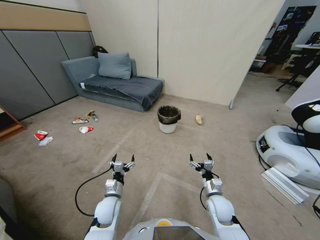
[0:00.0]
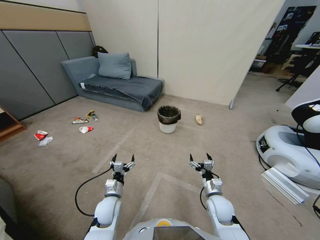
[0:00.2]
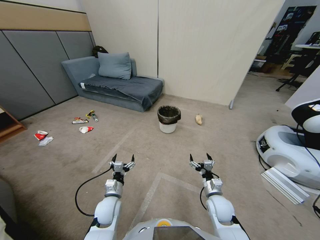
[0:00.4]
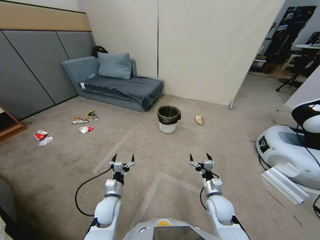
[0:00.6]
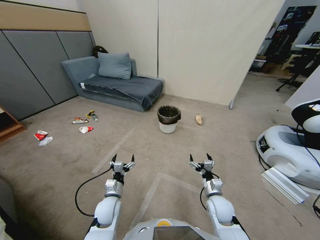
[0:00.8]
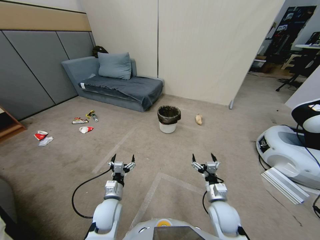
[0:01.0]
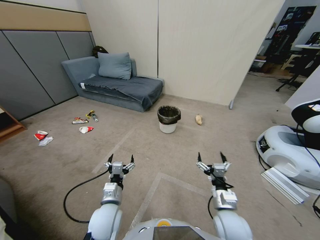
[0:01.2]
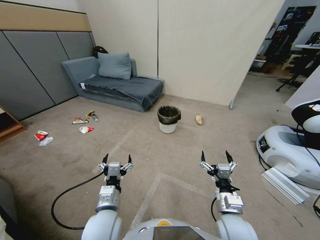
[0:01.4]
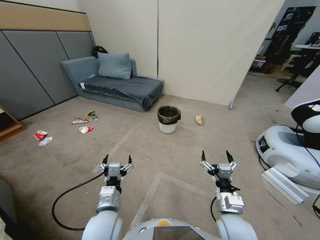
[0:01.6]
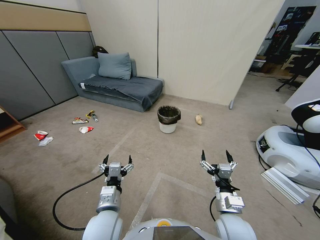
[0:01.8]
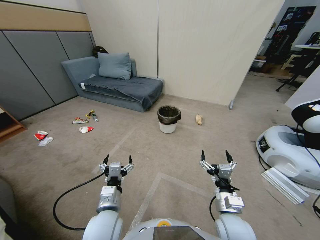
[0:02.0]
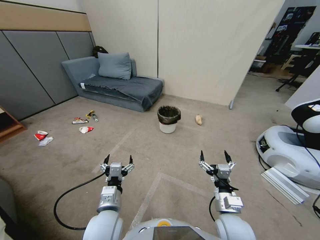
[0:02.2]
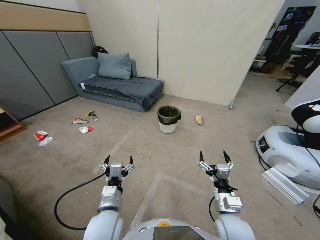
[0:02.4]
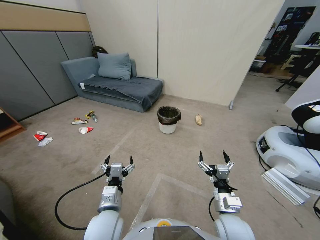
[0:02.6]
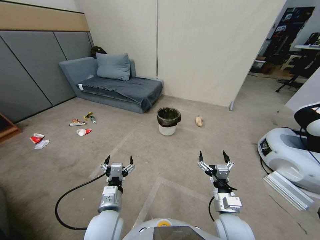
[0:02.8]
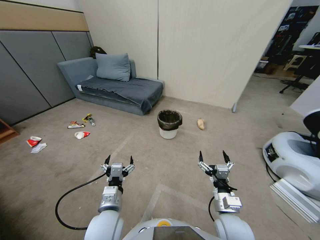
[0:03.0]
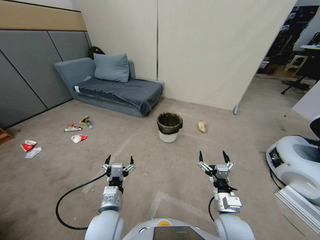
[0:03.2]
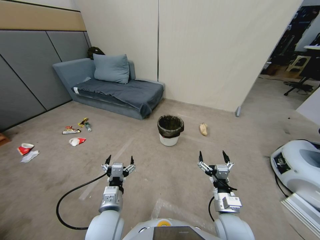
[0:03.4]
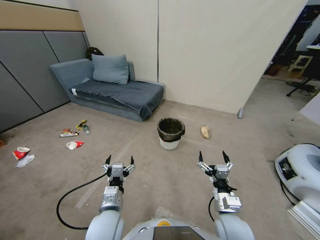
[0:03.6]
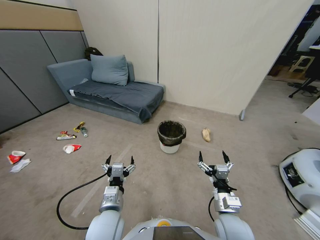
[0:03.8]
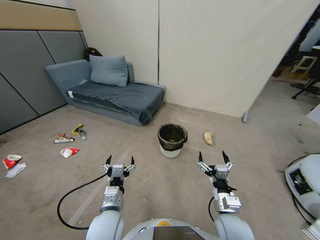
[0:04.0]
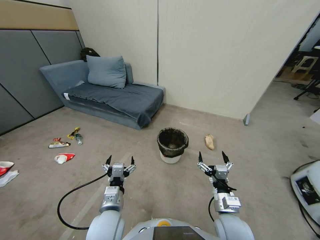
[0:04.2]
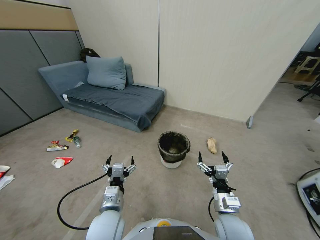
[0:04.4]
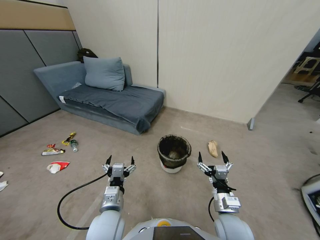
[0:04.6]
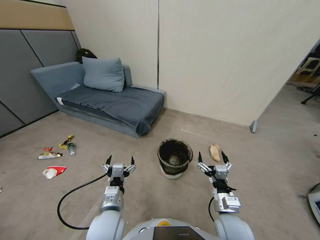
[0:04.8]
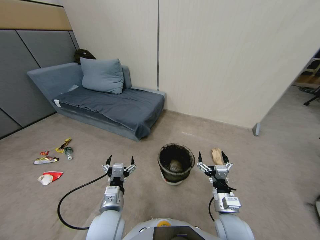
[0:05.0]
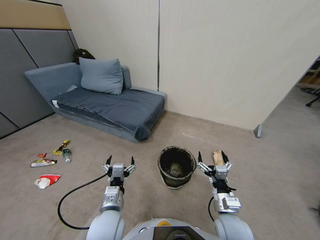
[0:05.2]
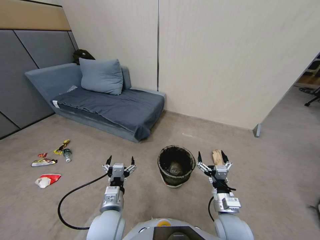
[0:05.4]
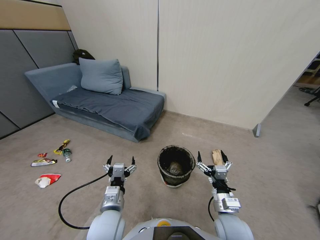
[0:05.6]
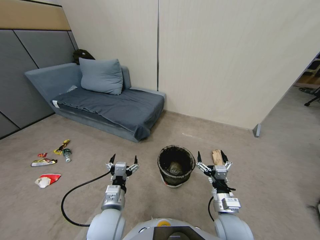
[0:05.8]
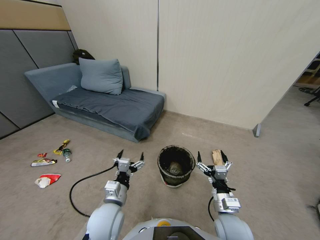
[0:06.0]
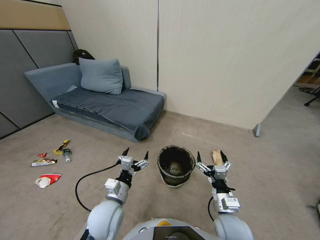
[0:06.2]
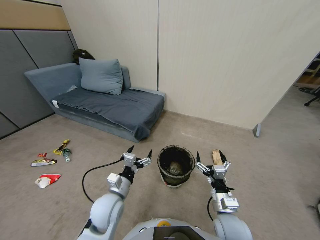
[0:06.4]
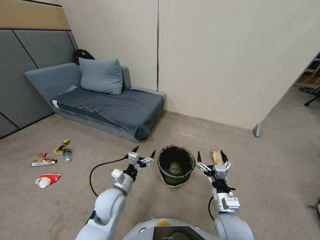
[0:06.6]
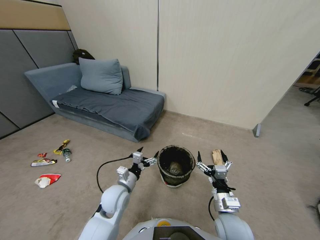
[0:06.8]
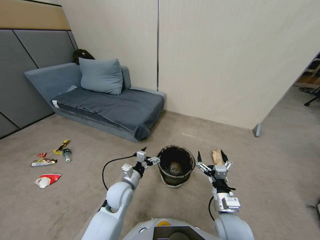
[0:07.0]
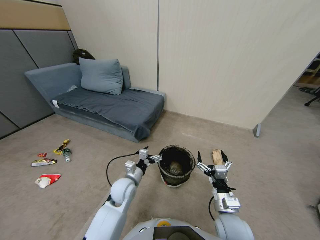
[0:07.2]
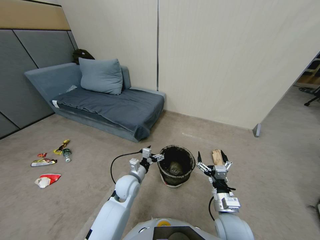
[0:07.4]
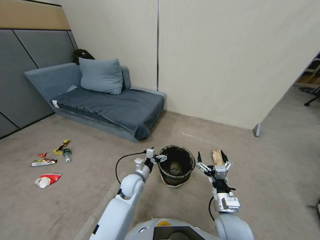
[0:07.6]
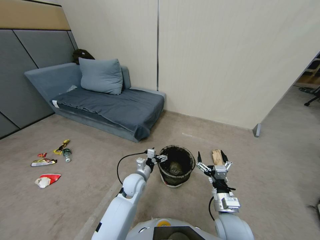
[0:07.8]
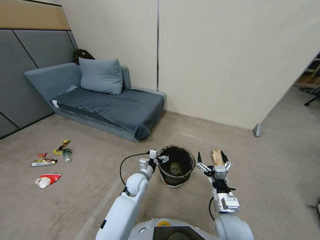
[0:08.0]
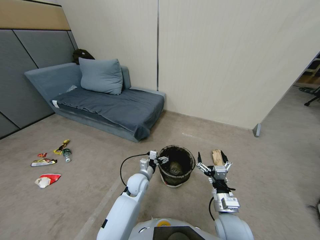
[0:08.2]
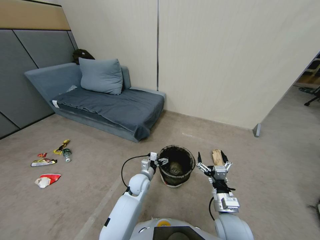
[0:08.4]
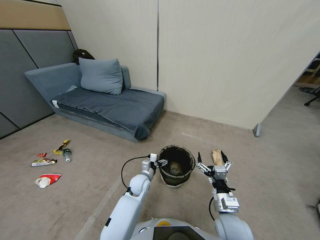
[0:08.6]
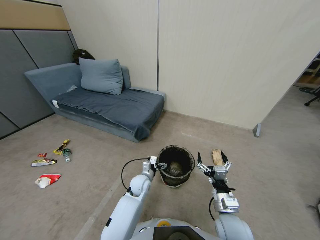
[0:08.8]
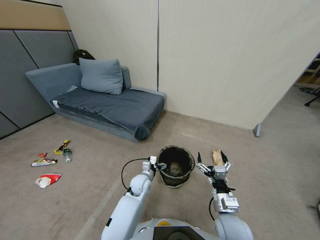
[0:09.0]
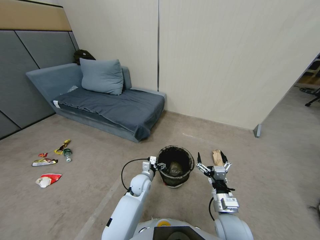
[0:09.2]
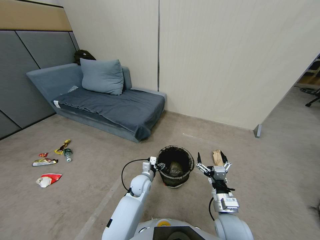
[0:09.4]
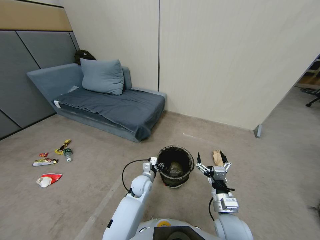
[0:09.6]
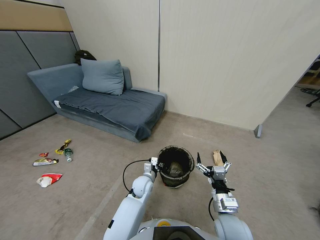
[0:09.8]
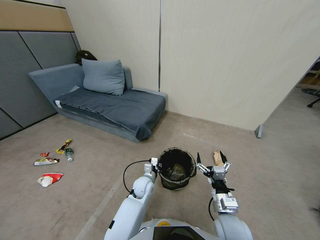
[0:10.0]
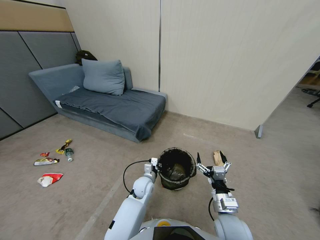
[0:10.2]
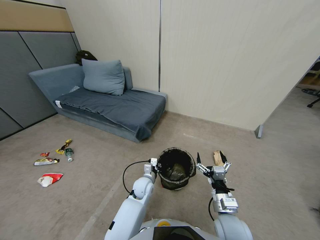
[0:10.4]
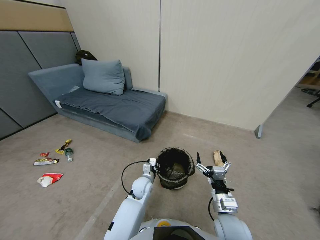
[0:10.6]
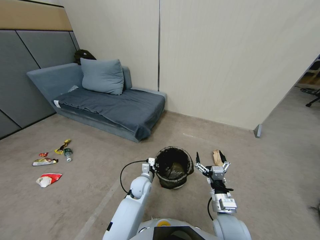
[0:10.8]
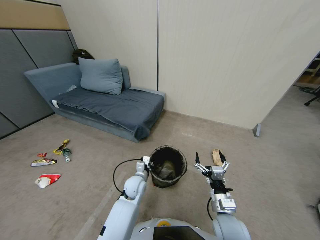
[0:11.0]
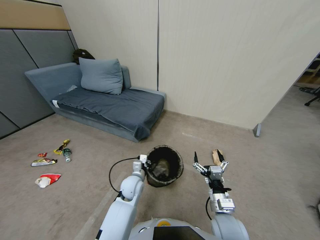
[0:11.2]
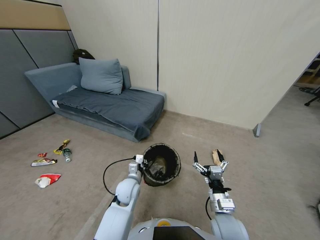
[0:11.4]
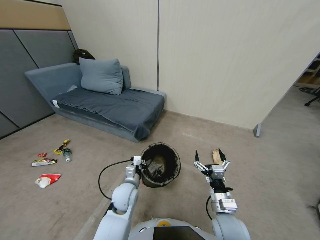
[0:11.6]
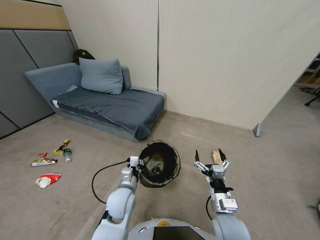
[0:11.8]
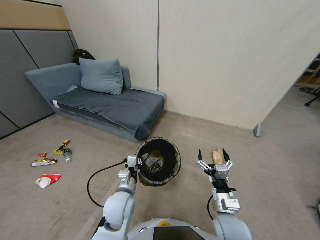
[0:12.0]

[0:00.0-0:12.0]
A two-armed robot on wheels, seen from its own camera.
Task of the whole recording: Pick up the trash bin, then pick up the garbage from the floor and place it into the trash bin.
0:01.6 to 0:03.0: Both grippers stay put.
0:06.0 to 0:07.6: The left gripper shifts roughly 15 cm forward and downward.
0:07.6 to 0:09.0: The left gripper shifts by some 5 cm.
0:09.0 to 0:10.4: The left gripper closes up.
0:10.4 to 0:12.0: The left gripper shifts roughly 15 cm upward, backward and to the left.

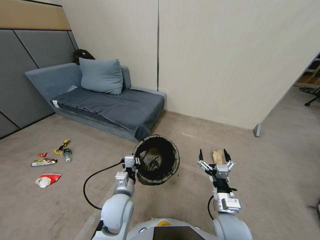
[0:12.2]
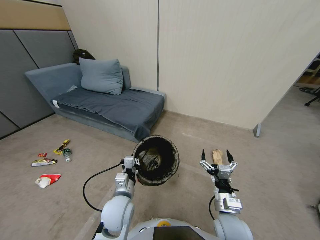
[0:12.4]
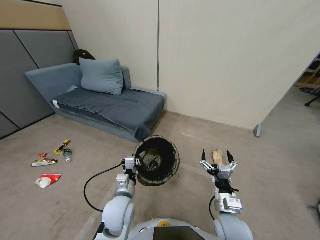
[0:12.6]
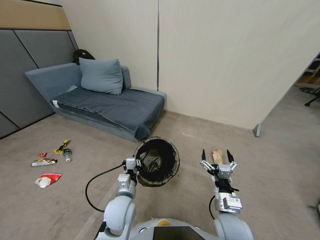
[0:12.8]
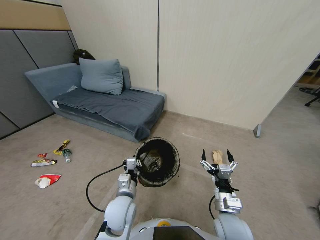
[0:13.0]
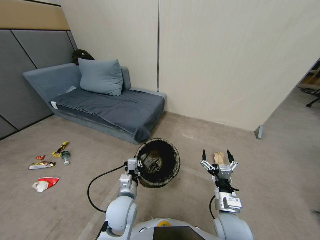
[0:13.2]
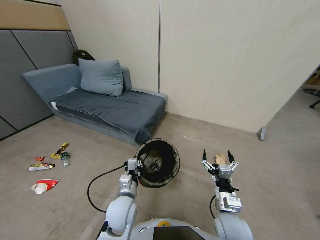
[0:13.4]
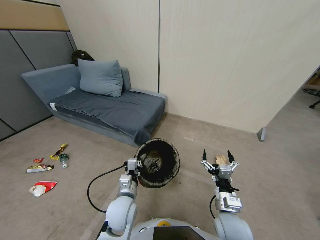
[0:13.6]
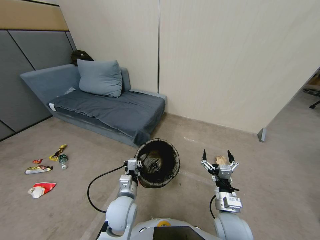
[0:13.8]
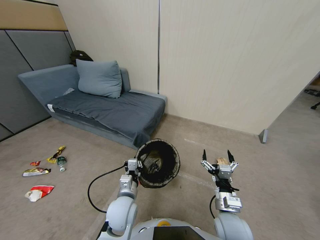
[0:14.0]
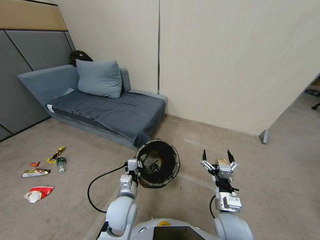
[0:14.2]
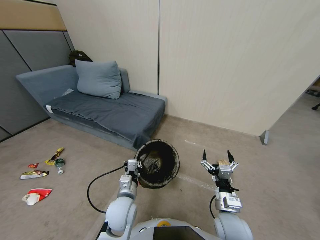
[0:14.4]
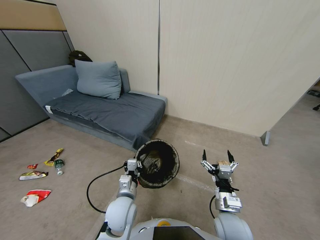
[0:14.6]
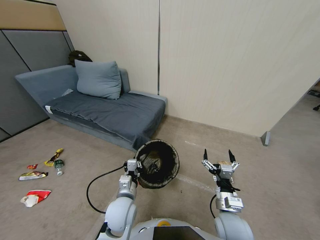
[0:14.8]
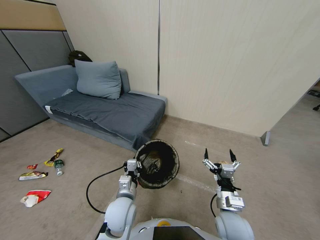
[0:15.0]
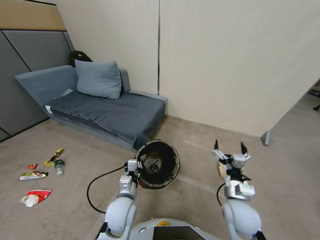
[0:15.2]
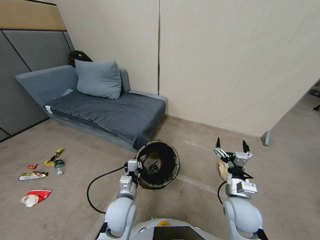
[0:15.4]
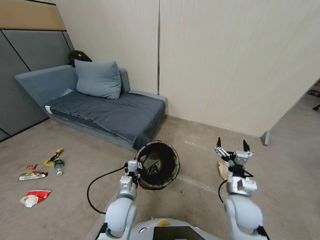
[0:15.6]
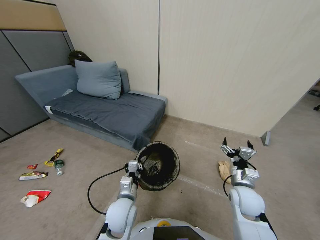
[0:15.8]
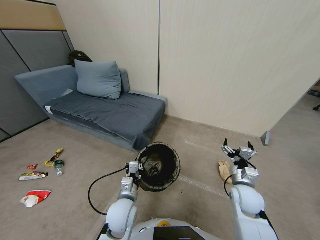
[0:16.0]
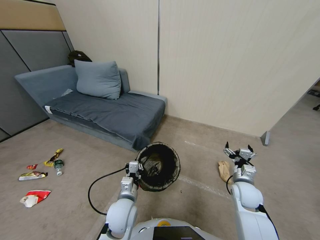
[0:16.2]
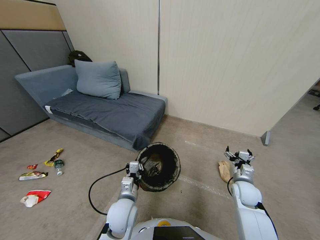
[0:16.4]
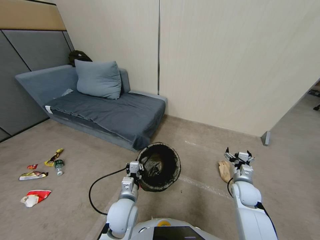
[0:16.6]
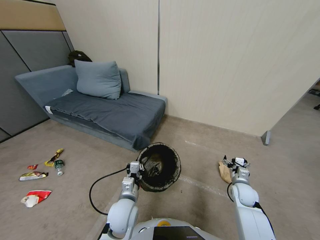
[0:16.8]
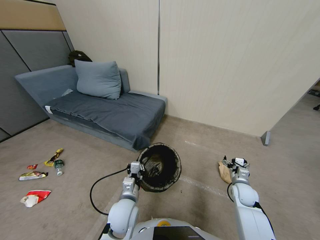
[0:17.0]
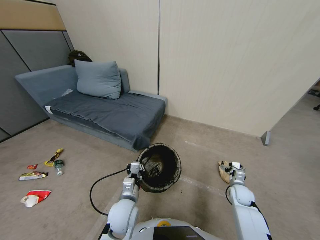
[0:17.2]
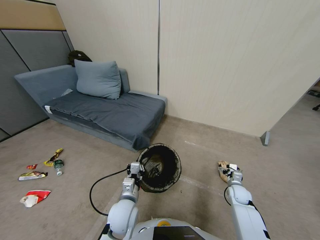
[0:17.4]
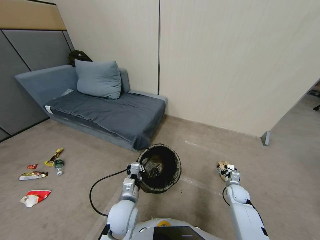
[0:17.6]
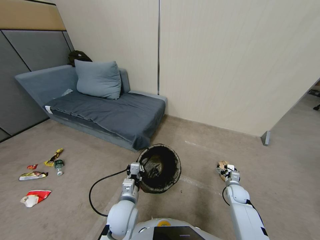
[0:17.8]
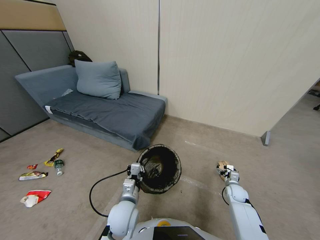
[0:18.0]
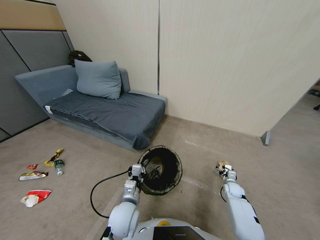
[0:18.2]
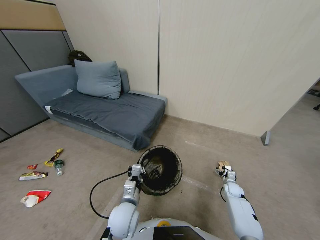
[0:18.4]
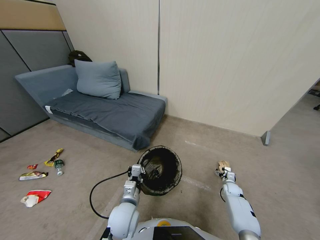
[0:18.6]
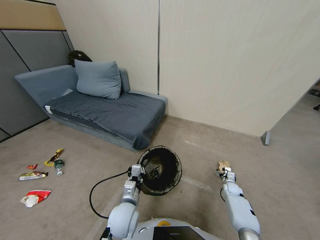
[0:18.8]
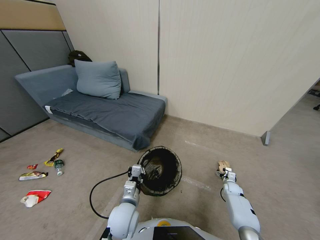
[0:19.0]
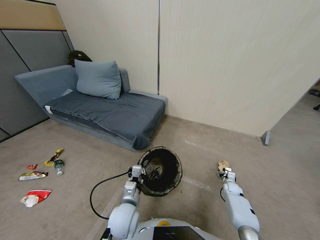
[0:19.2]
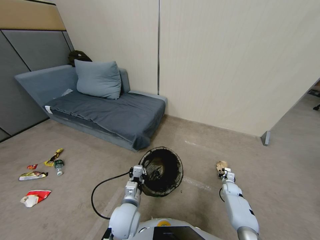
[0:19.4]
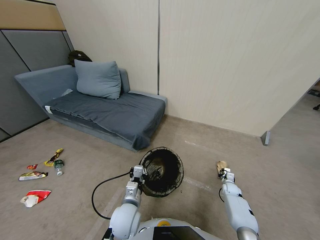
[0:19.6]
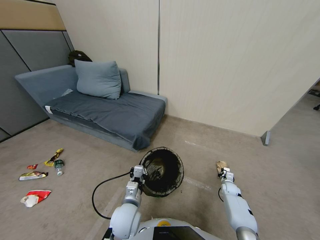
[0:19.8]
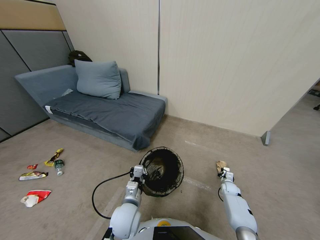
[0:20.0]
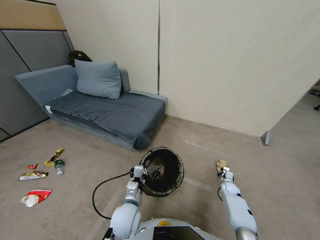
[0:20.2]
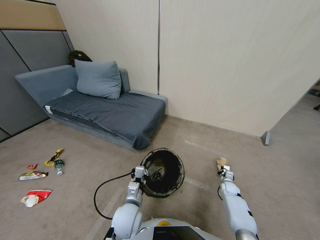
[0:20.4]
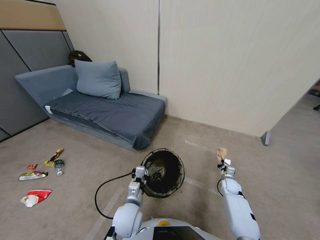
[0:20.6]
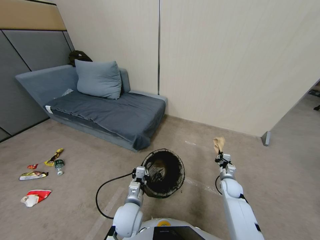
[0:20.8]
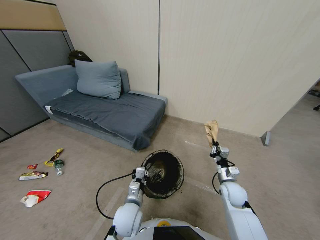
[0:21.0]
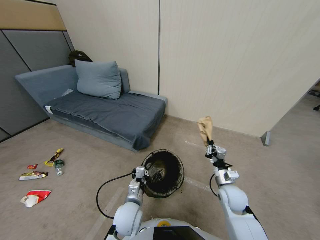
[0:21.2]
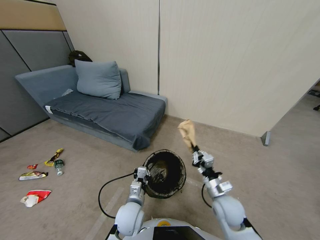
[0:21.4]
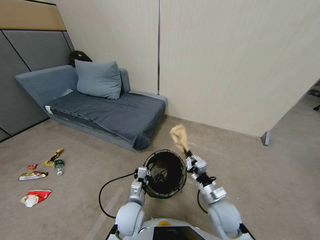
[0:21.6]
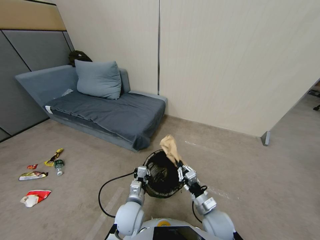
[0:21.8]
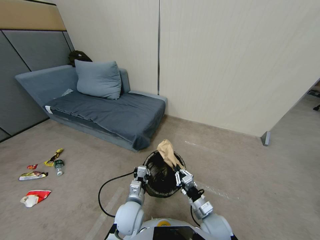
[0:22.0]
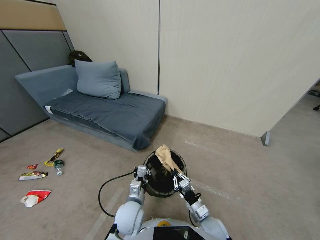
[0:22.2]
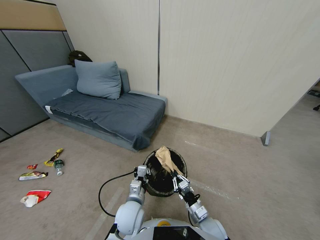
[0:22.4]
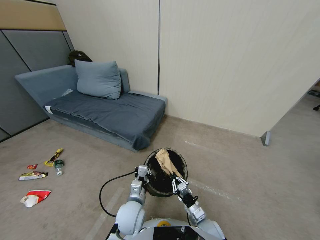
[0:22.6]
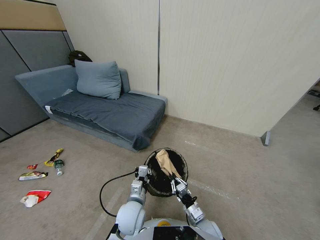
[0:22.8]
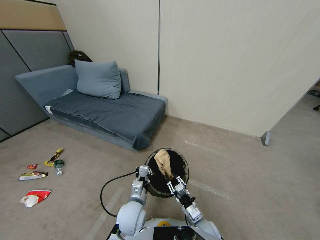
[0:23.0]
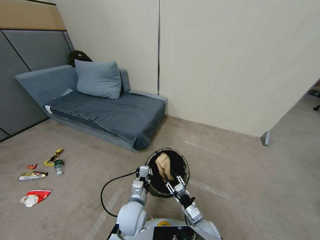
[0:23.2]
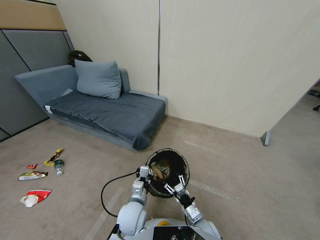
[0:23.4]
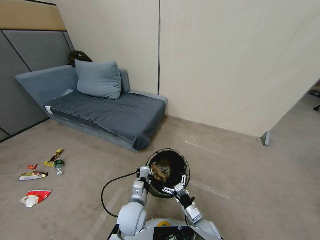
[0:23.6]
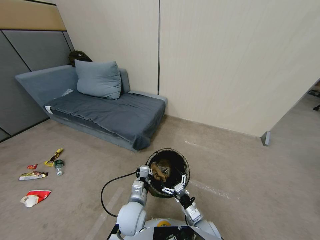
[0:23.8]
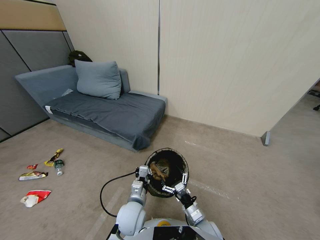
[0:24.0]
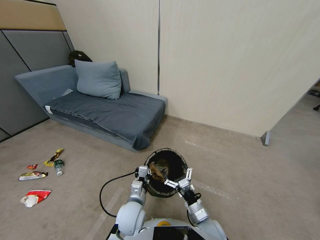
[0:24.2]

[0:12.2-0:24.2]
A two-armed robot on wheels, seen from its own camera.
Task of the whole recording: Pick up the trash bin, then pick up the garbage from the floor and place it into the trash bin.
0:12.2 to 0:13.8: There are only small adjustments of the grippers.
0:13.8 to 0:15.2: The right gripper changes place by approximately 5 cm.
0:15.2 to 0:16.6: The right gripper heads to the right, downward and forward, covering some 20 cm.
0:16.6 to 0:18.2: The right gripper travels downward by approximately 15 cm.
0:18.2 to 0:19.8: The right gripper closes up.
0:19.8 to 0:21.2: The right gripper heads upward, to the left and backward, covering roughly 30 cm.
0:21.2 to 0:22.6: The right gripper shifts about 15 cm downward, backward and to the left.
0:22.6 to 0:24.2: The right gripper goes some 5 cm upward, and opens its fingers.
